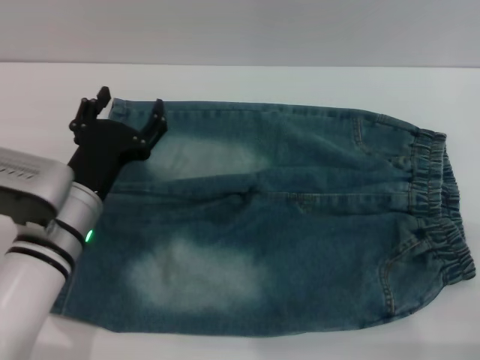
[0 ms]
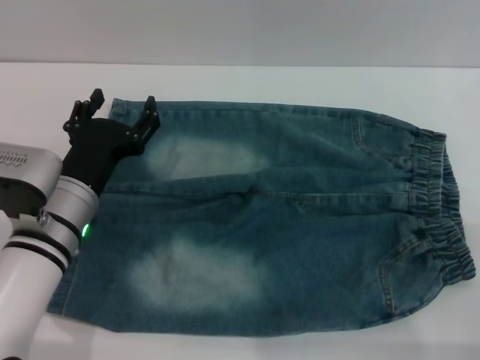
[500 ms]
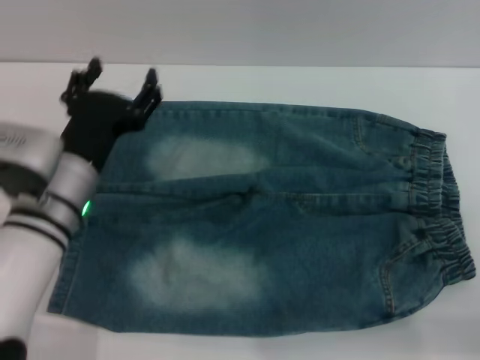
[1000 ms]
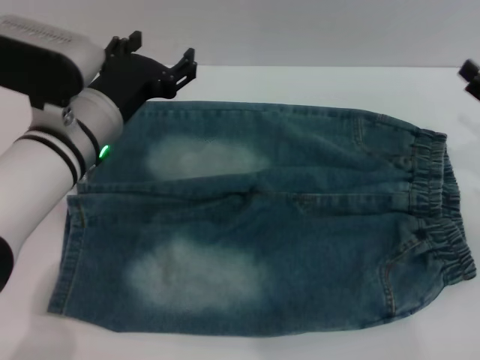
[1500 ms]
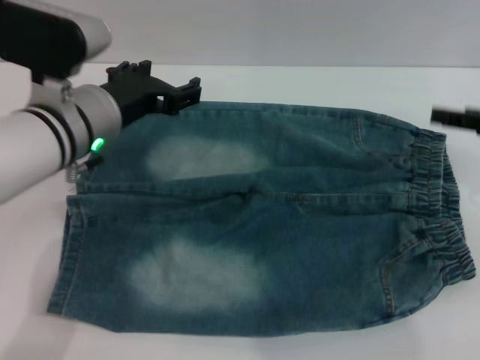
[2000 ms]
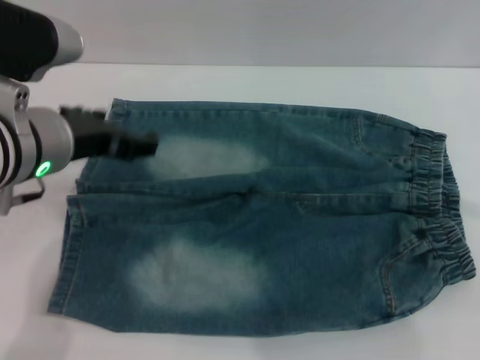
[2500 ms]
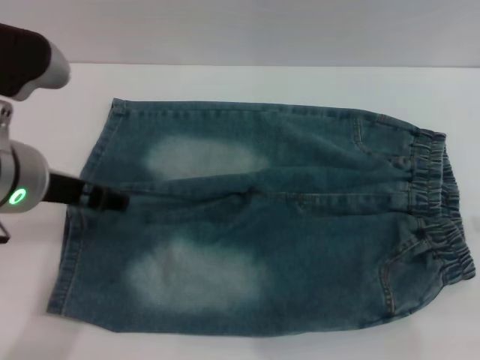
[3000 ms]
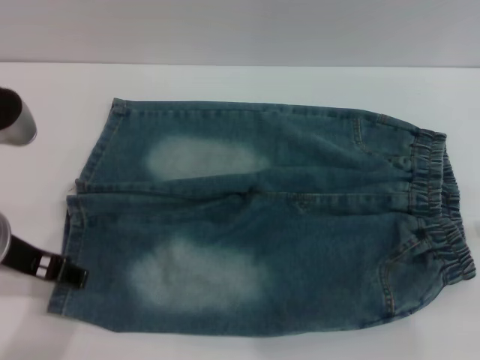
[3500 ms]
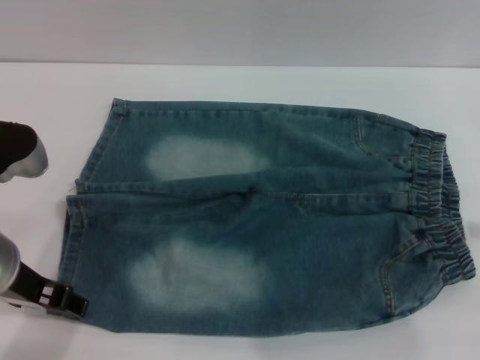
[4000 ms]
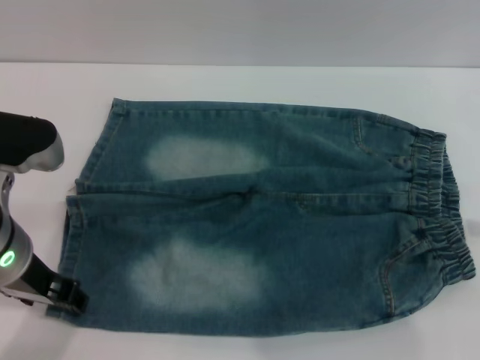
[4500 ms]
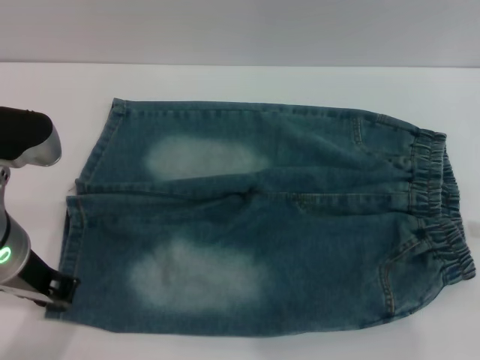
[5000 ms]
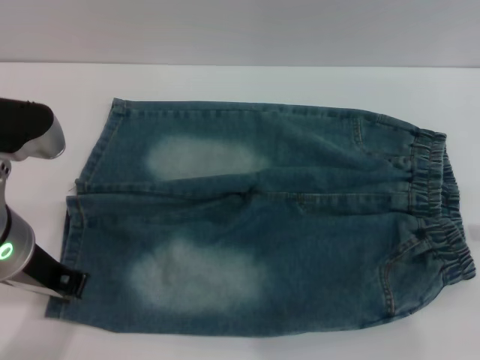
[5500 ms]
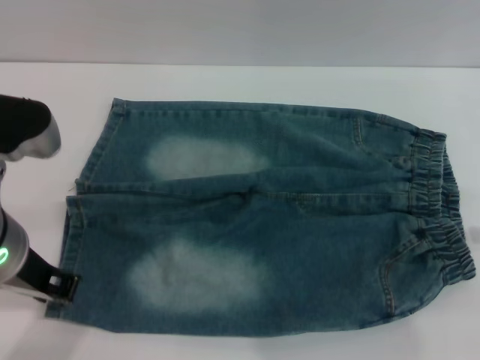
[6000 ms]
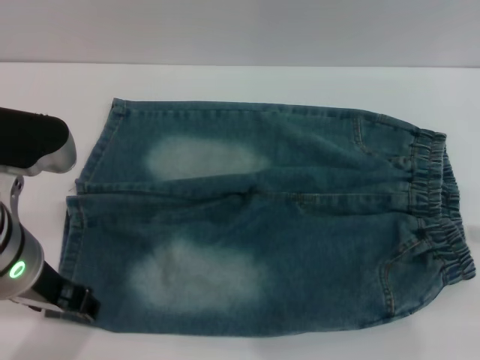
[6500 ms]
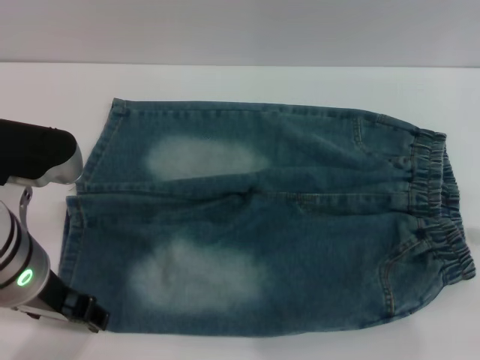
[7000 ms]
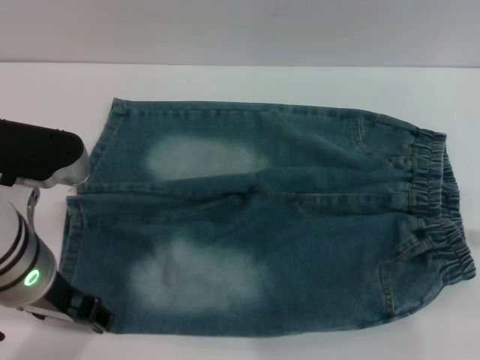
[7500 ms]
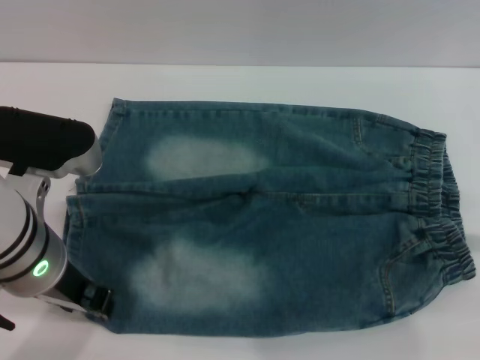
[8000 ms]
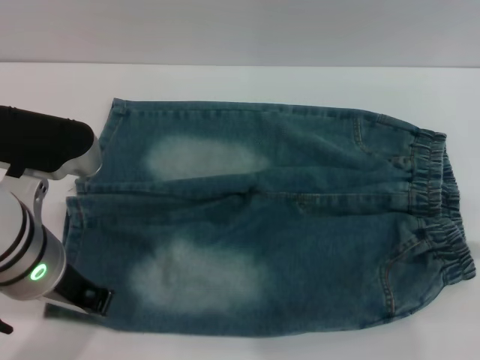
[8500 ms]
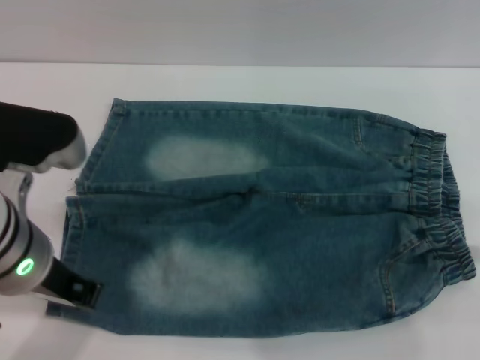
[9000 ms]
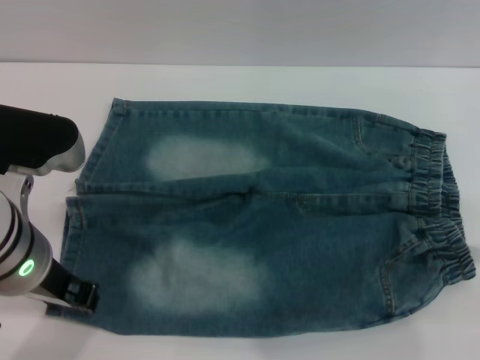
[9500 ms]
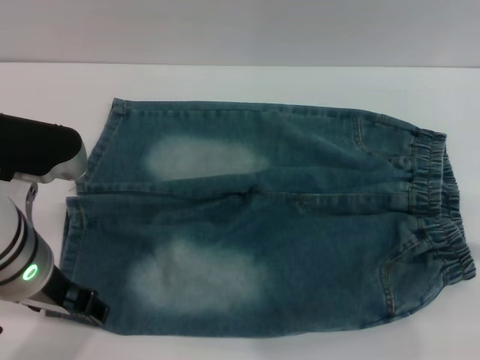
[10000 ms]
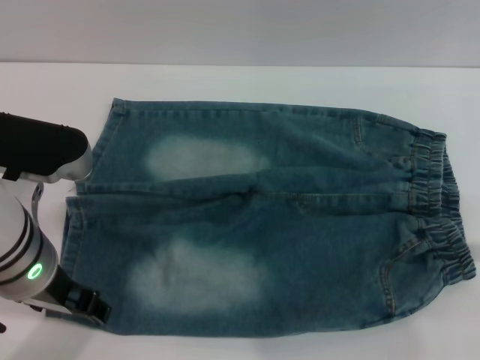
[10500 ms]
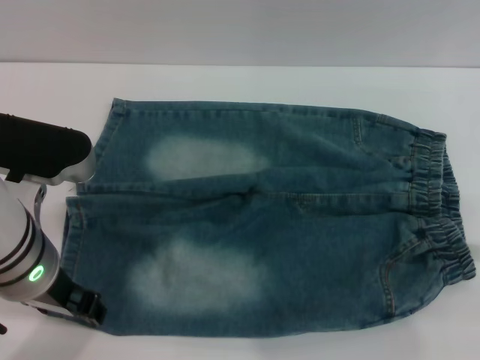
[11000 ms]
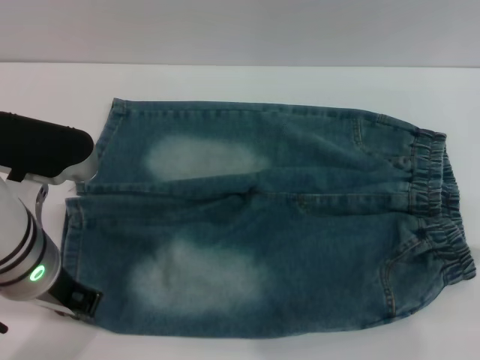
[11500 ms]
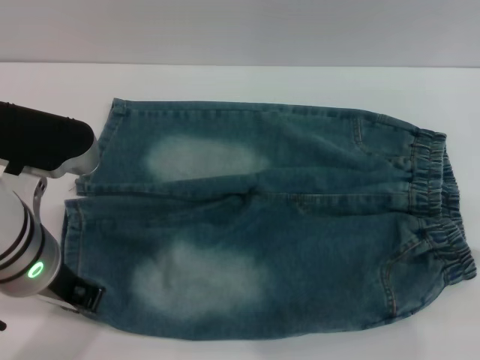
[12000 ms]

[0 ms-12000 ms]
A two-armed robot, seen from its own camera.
0 ms to 2000 ms: The right gripper moves forward and upward, some 15 cm; the left gripper travels upward and forward by roughly 10 cm.
2000 ms to 4000 ms: The left gripper travels backward by approximately 10 cm, while the right gripper goes roughly 5 cm backward.
4000 ms to 6000 ms: The left gripper closes up.
6000 ms to 8000 ms: The left gripper opens.
8000 ms to 10000 ms: The left gripper closes, then opens again.
10000 ms to 12000 ms: The left gripper closes up.

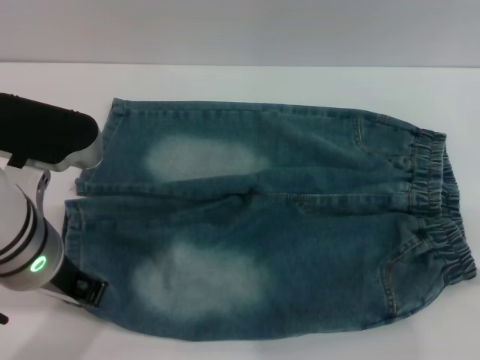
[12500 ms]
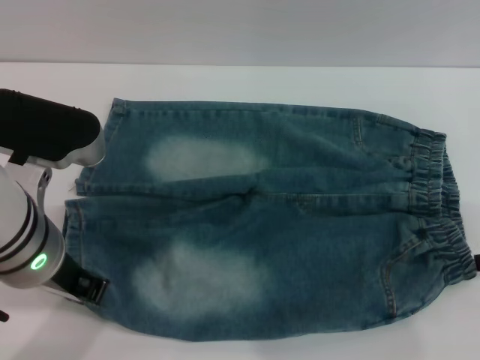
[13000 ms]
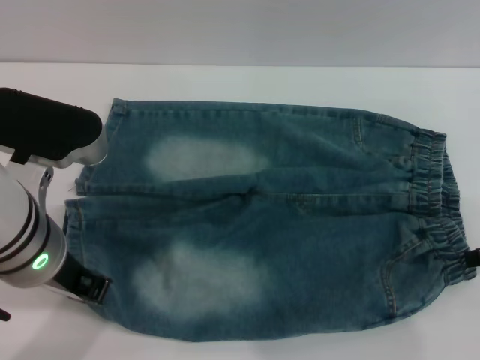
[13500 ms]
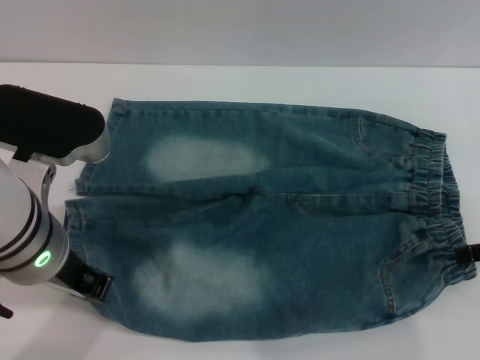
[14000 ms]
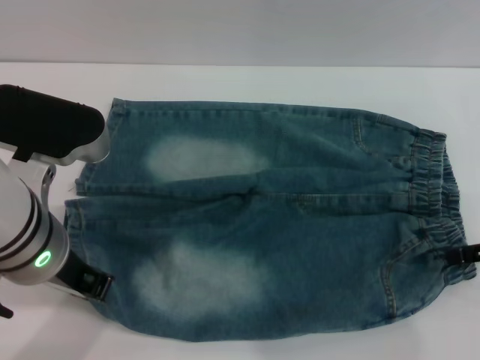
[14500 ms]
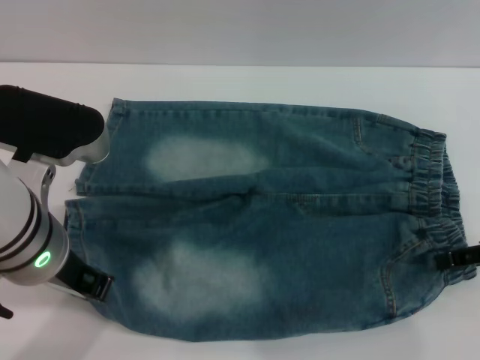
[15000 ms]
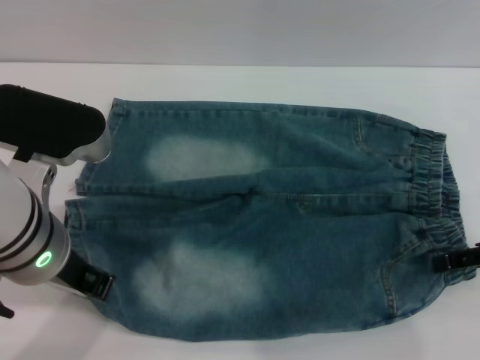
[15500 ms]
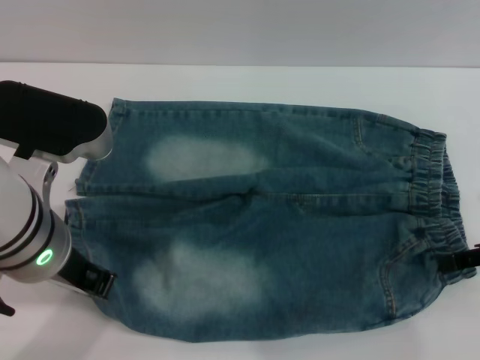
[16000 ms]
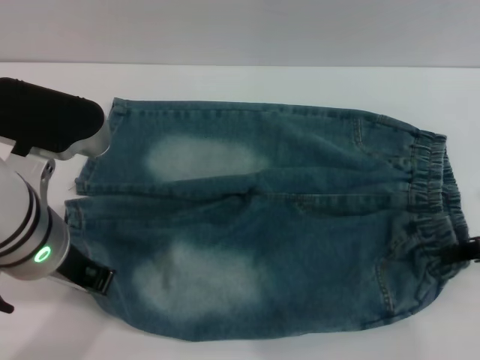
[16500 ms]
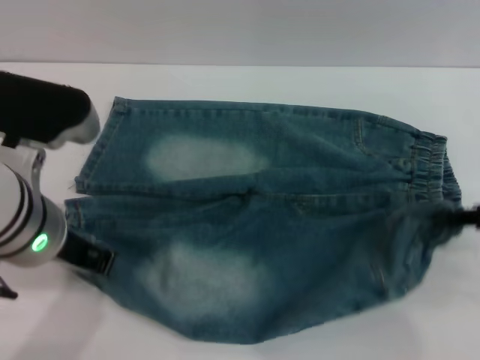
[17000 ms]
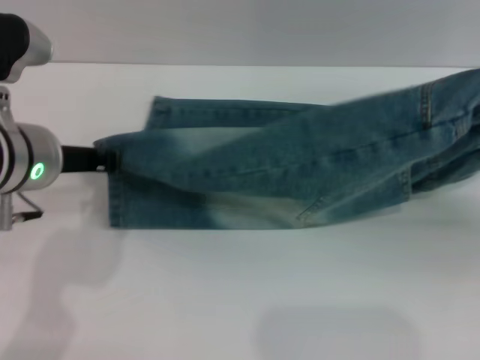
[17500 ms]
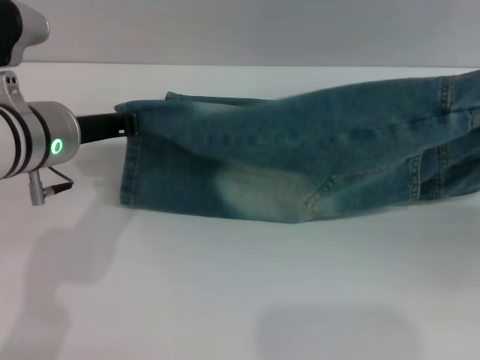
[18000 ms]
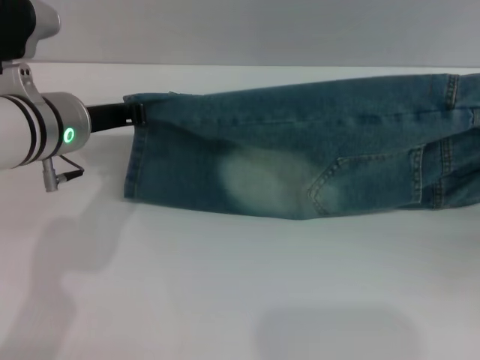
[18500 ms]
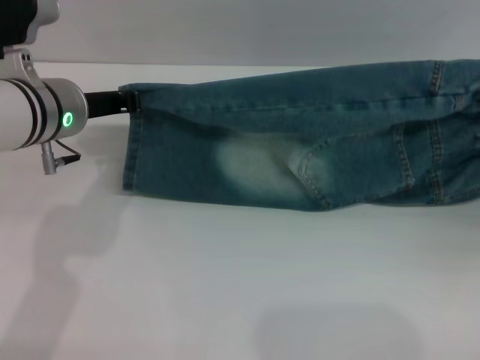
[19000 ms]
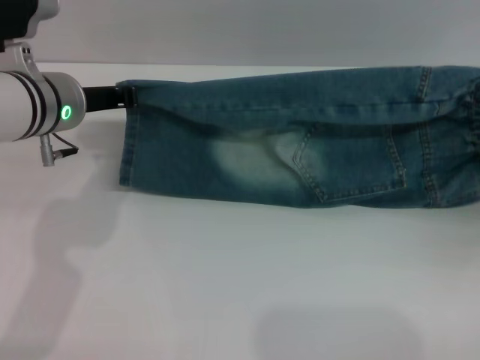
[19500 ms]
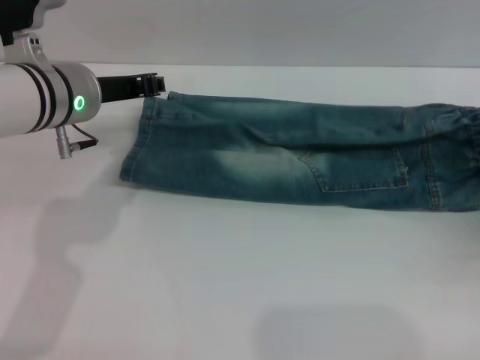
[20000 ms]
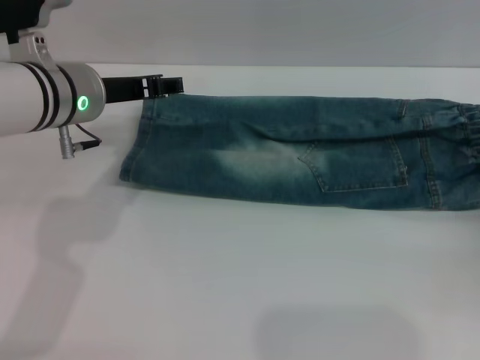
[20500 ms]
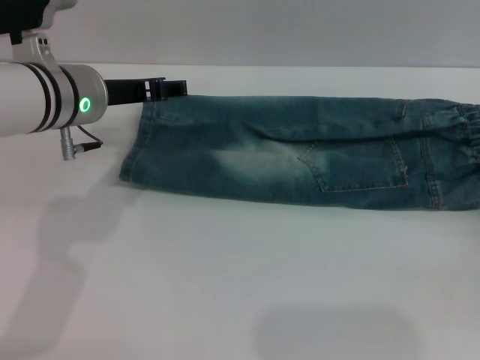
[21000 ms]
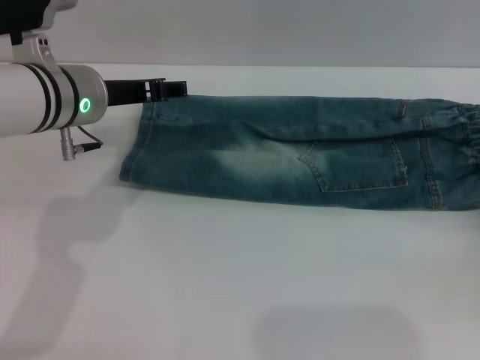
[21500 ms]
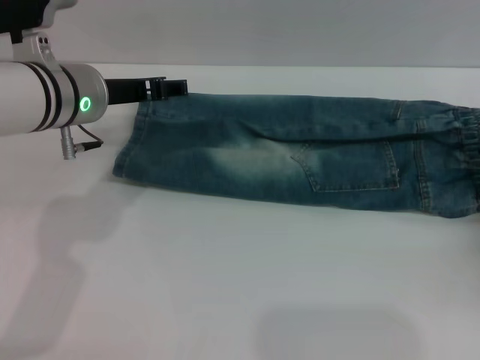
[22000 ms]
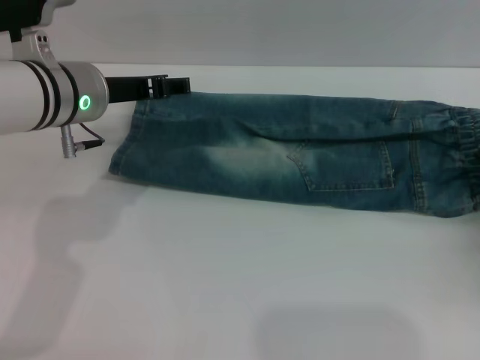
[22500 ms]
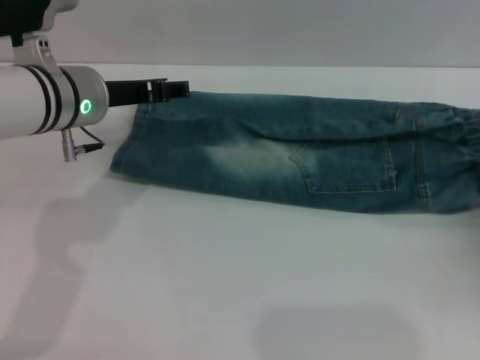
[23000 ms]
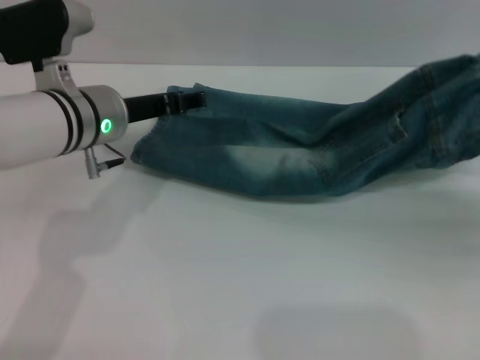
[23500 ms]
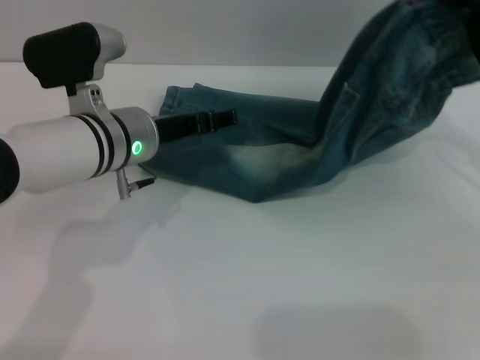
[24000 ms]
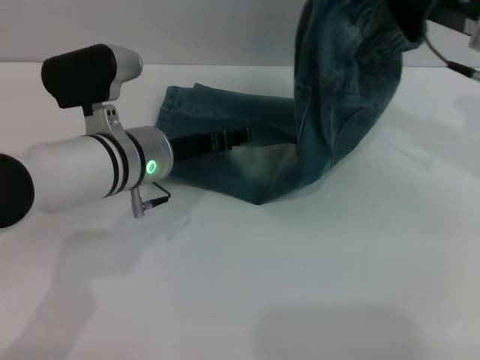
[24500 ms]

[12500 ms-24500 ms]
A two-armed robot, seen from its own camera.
Step, 12500 ms to 20000 ms: Fold the bottom of the pants upward with both grippers.
12500 ms to 14500 ms: The grippers move only a little.
14500 ms to 16500 ms: The right gripper closes up.
16500 ms to 18500 ms: The right gripper moves to the right, approximately 5 cm. Meanwhile the left gripper is displaced forward by about 10 cm.
18500 ms to 20500 ms: The right gripper opens its fingers. Meanwhile the left gripper opens.
20500 ms to 22500 ms: There are only small adjustments of the grippers.
22500 ms to 24500 ms: The right gripper shifts some 25 cm upward, forward and to the left, and closes its fingers, while the left gripper heads downward, covering roughly 5 cm.

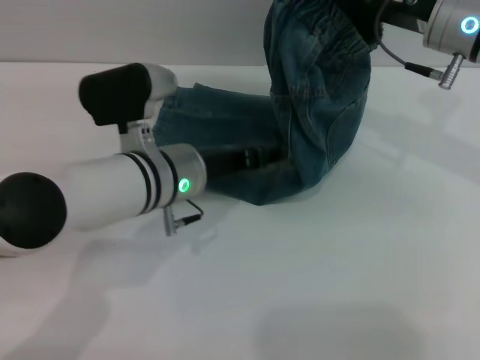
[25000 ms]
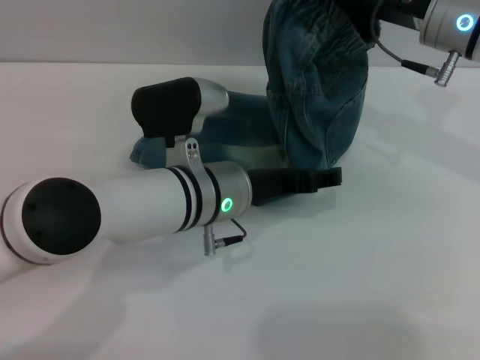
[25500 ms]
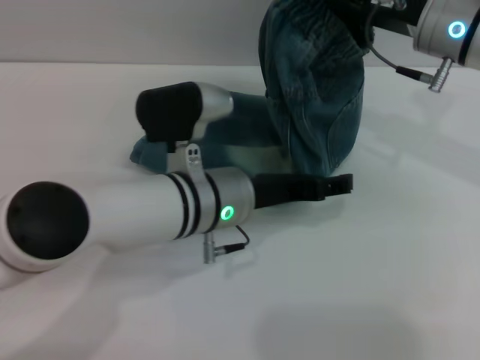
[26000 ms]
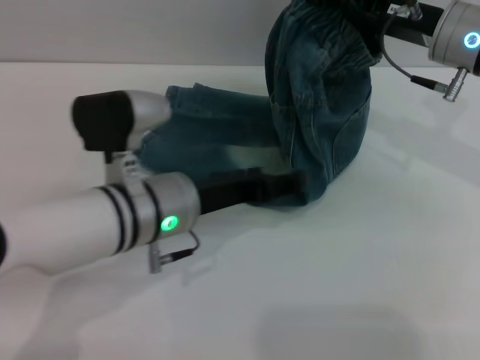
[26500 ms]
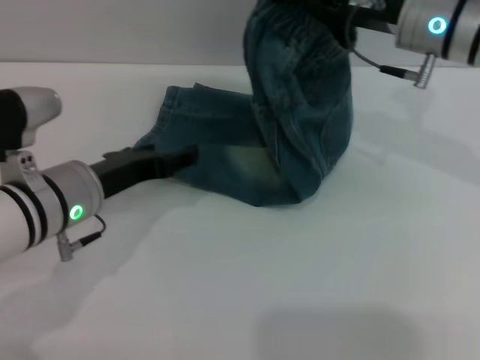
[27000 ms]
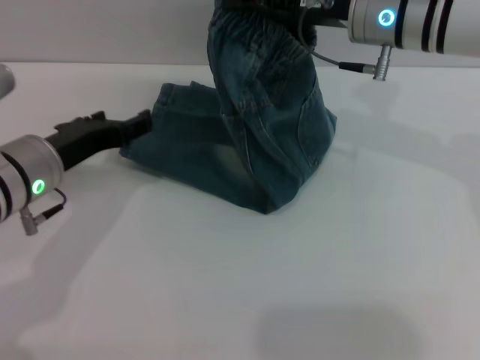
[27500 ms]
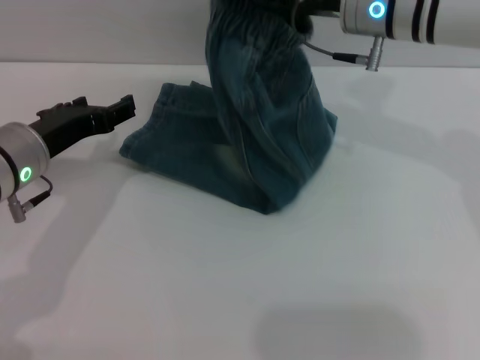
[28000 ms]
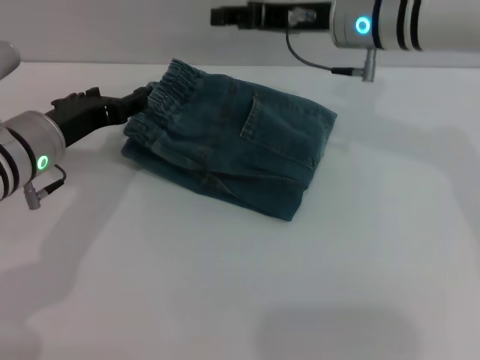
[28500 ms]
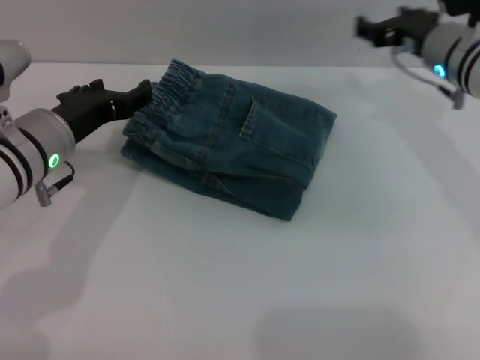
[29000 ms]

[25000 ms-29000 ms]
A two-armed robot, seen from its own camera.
Step, 25000 ms to 28500 ms: Fold the pants from right to left with the right gripper.
25000 ms to 27000 ms: The left gripper travels to the left by approximately 10 cm.
27000 ms to 29000 ms: The right gripper moves downward, about 5 cm, travels to the left and back again, roughly 5 cm each way, and opens up.
